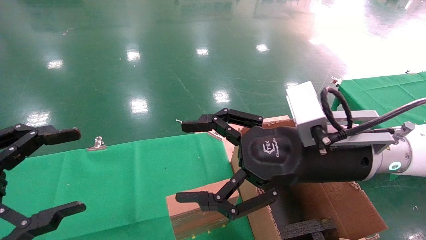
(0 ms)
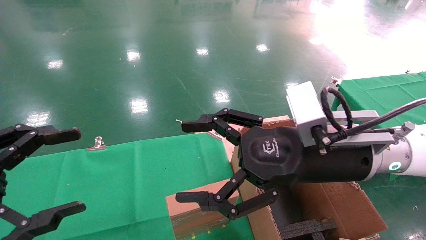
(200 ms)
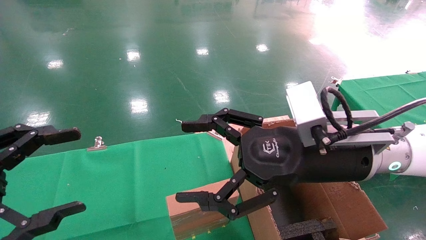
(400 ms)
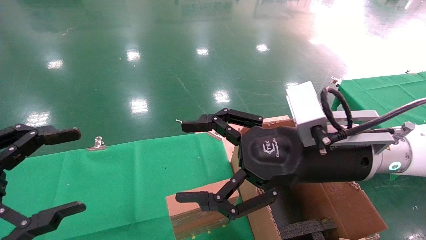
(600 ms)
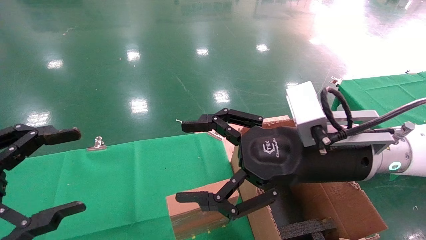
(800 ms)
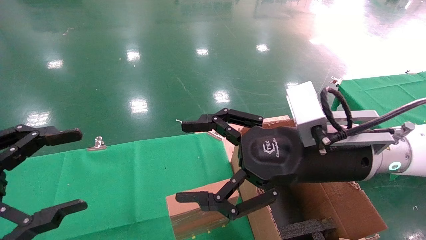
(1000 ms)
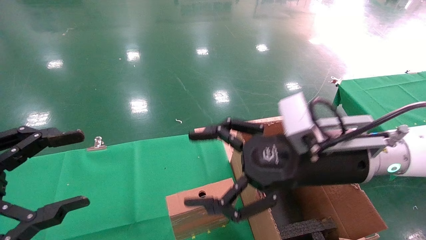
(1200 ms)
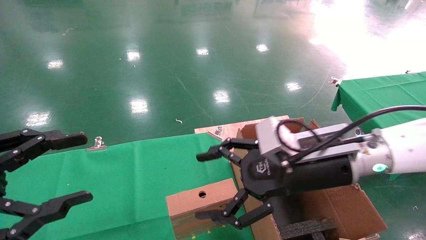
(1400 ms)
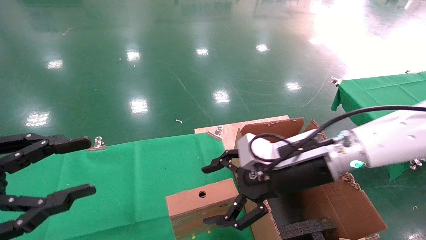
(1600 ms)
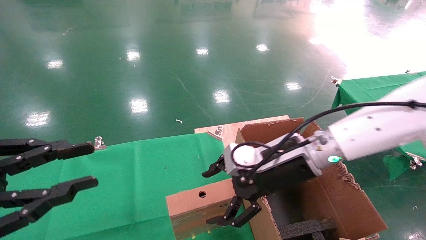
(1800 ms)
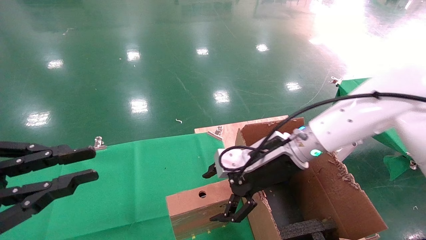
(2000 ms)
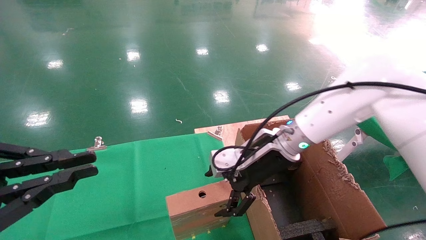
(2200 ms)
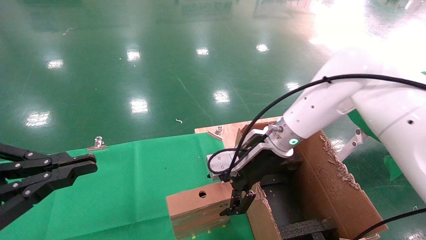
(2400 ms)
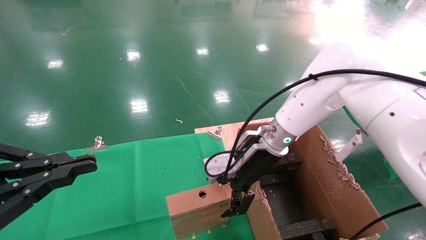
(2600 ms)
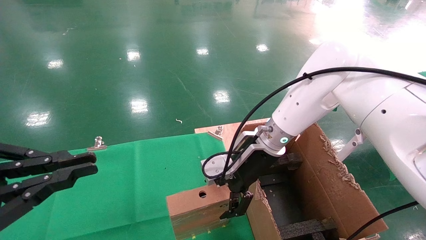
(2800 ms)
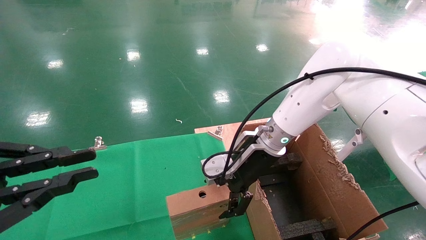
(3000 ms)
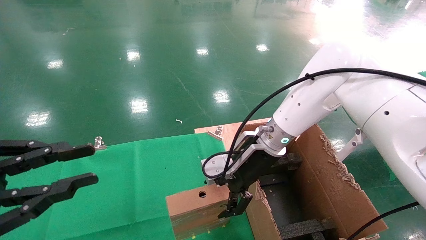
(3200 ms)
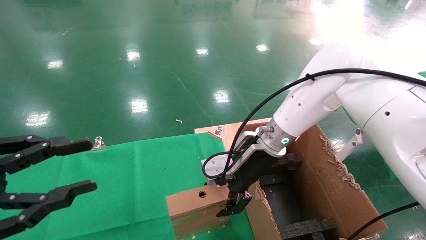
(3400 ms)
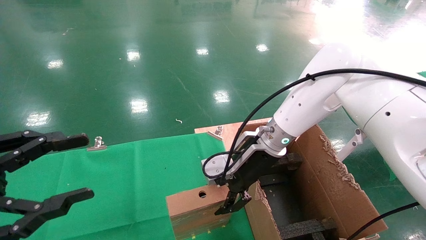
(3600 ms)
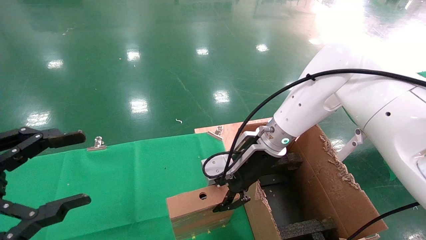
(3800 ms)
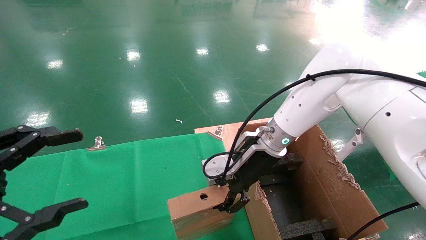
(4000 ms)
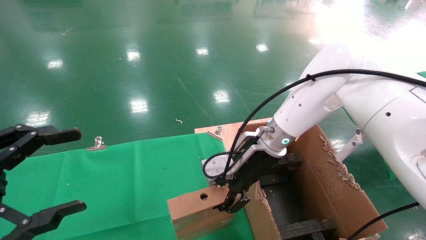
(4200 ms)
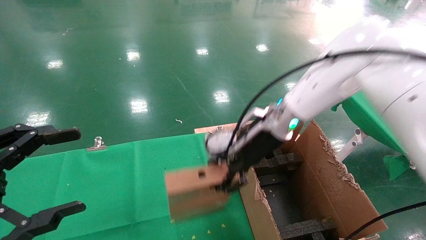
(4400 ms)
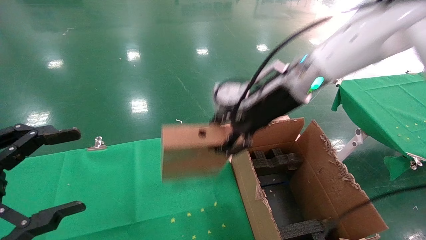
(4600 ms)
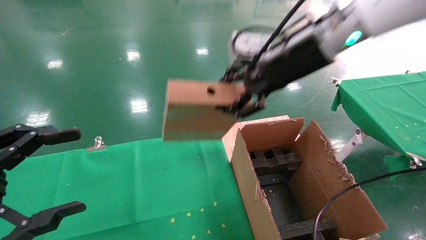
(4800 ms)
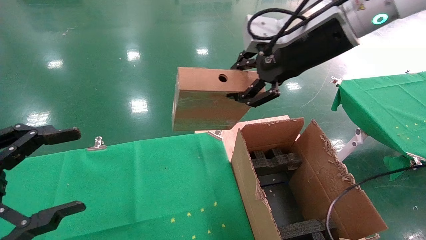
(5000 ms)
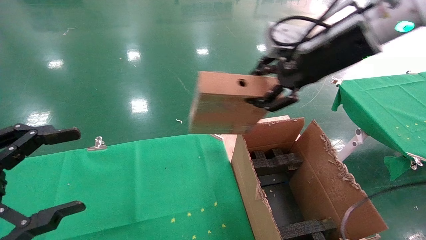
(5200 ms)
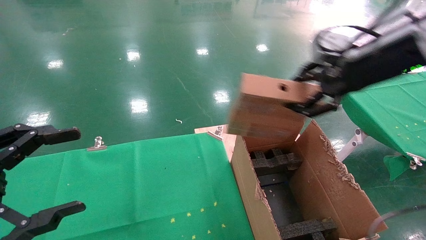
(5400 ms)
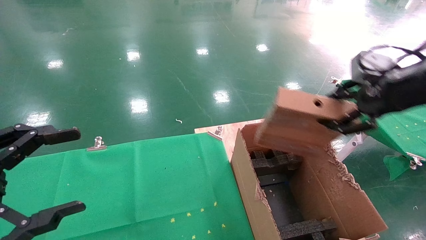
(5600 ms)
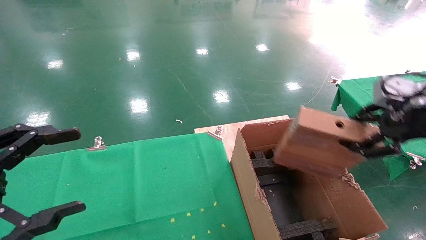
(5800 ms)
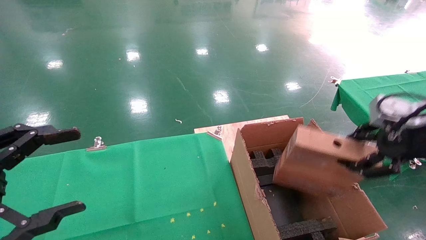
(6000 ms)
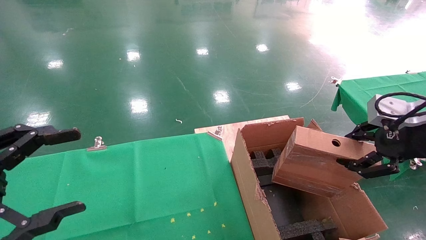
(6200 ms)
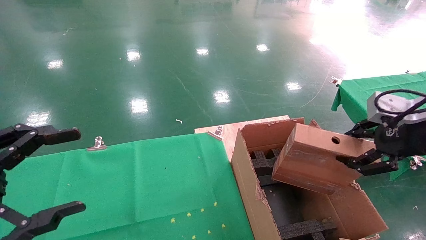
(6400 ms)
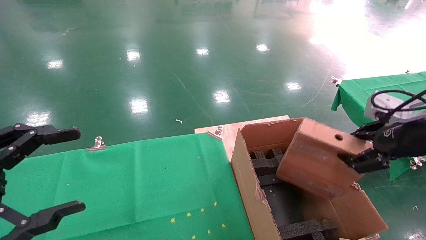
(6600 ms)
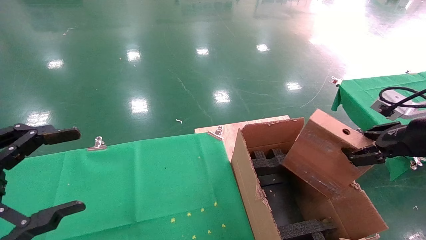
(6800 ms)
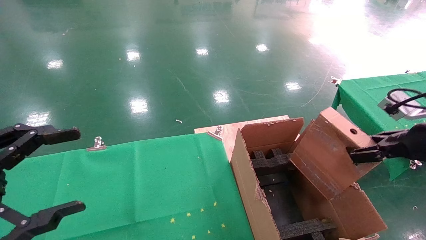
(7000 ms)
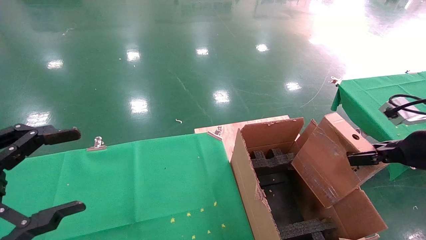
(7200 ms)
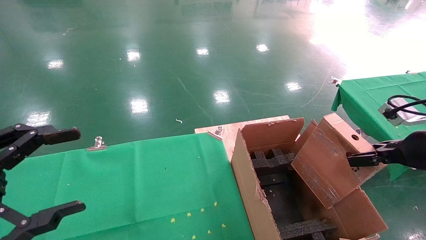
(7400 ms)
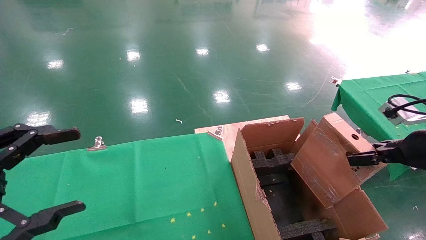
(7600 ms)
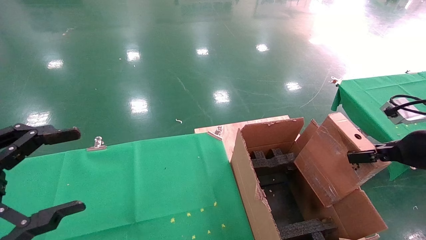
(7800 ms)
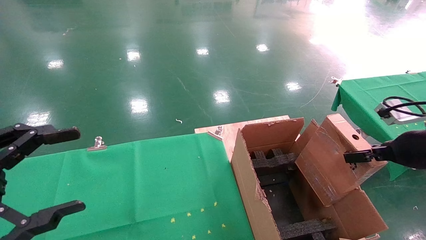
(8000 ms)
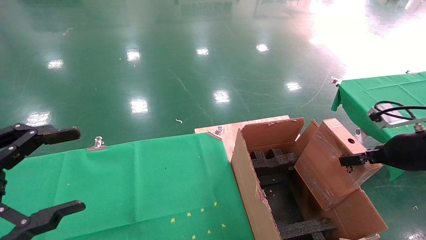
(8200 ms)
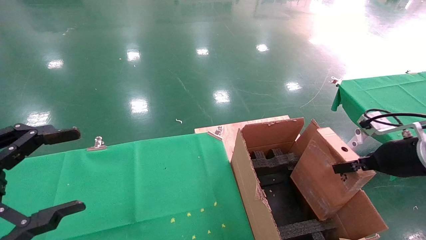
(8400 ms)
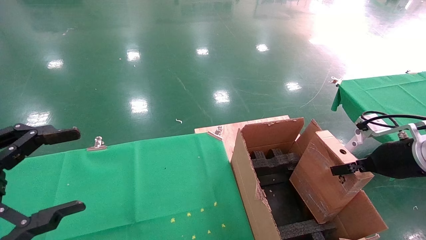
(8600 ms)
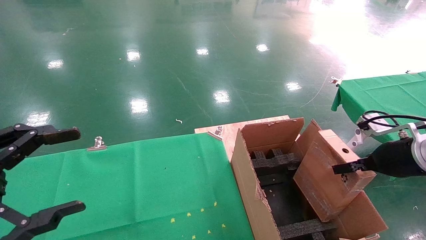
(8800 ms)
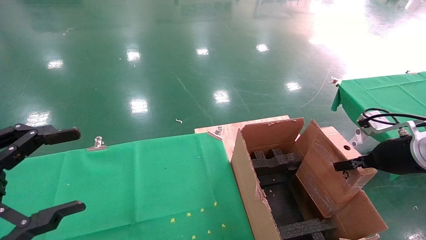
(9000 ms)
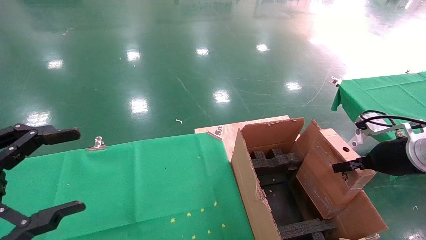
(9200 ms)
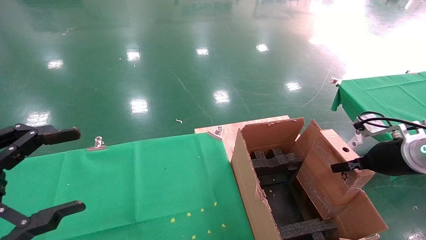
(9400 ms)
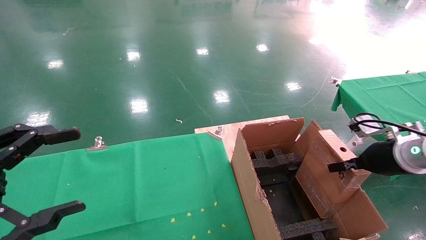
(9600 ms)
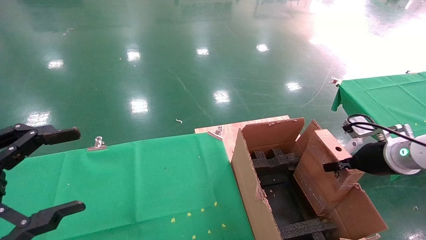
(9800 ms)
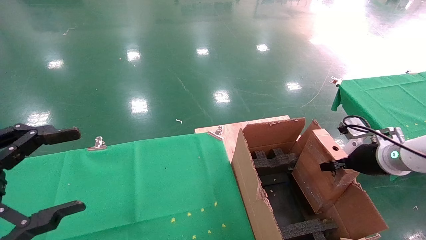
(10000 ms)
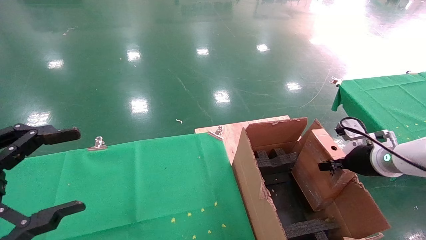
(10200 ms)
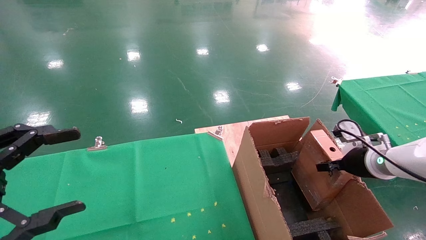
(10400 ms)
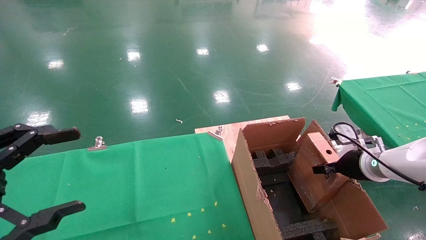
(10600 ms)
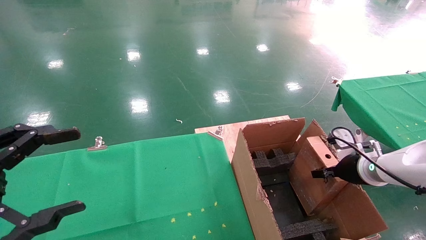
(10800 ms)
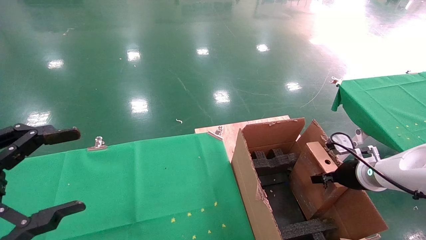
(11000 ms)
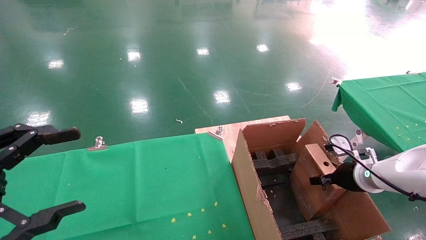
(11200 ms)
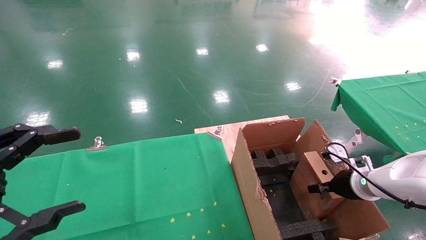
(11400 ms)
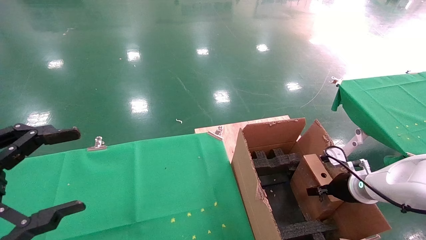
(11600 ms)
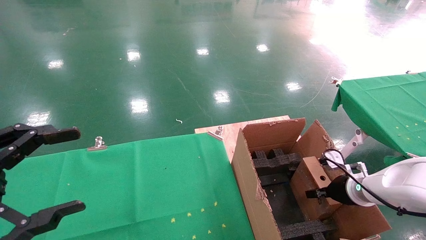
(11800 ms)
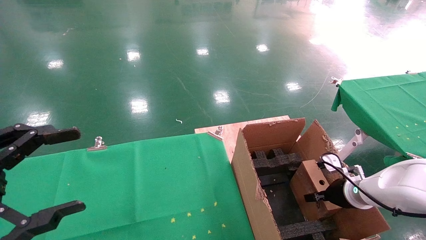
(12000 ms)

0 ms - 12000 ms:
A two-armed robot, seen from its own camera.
Task of the whole recording: using a robotic arm to pick up a cardboard box and palace it the carton.
Step, 1400 ms - 3800 ms: Pick up the mouse and the power cord paper box.
0 ms - 1600 ms: The left gripper closes. The right gripper is displaced forward by some 5 cm.
1600 ms - 3000 ms: The right gripper heads forward, covering roughly 10 cm. Meanwhile the left gripper closes.
3000 ms - 4400 ms: The right gripper moves upward, roughly 5 cm, and closes. Meanwhile the left gripper opens.
4400 ms - 6000 ms: The right gripper moves to the right and backward, roughly 30 cm.
6000 ms - 7600 ms: The right gripper moves downward, approximately 5 cm.
7600 ms - 9000 ms: The right gripper changes place by some 5 cm.
9000 ms - 10400 ms: The right gripper moves forward and downward, approximately 10 cm.
10400 ms - 12000 ms: The right gripper heads downward, covering some 10 cm.

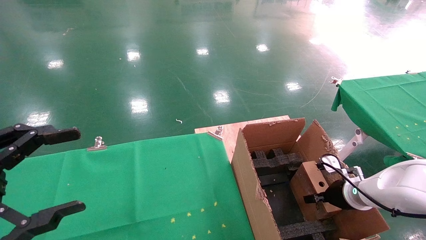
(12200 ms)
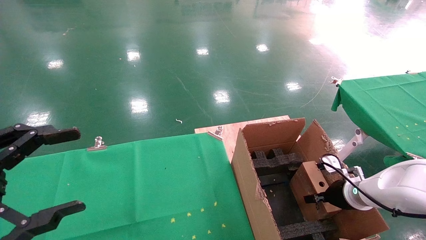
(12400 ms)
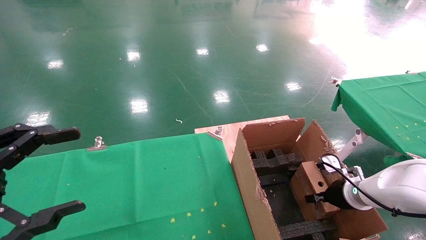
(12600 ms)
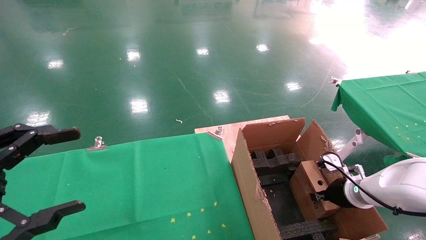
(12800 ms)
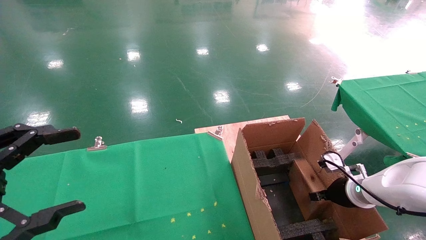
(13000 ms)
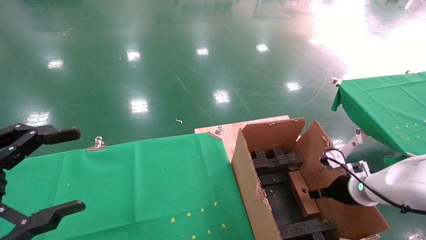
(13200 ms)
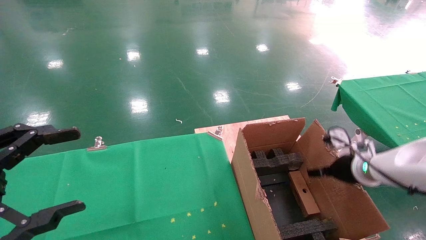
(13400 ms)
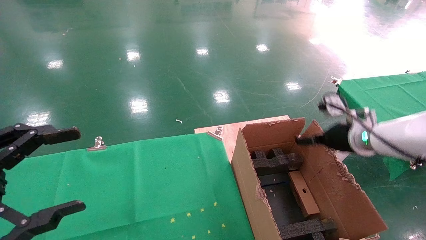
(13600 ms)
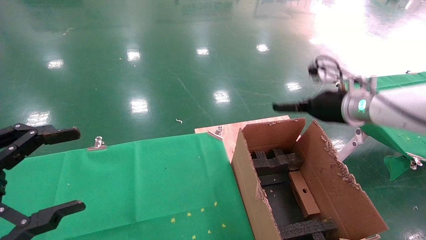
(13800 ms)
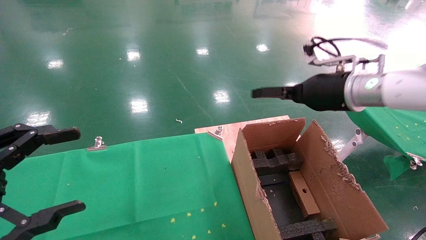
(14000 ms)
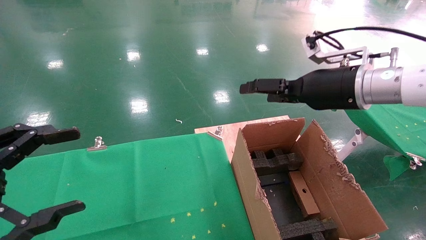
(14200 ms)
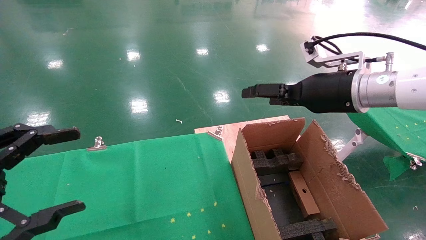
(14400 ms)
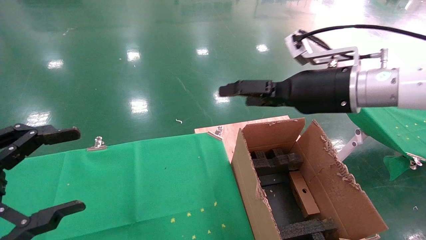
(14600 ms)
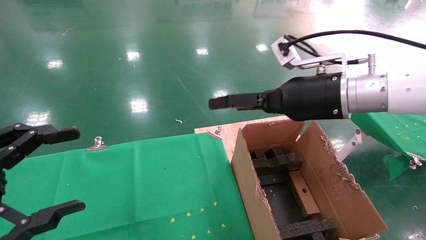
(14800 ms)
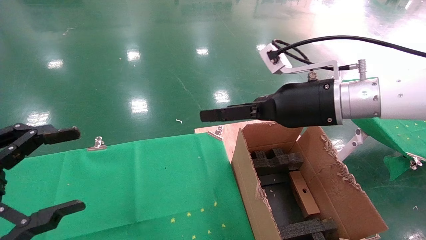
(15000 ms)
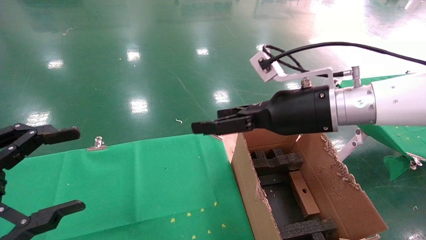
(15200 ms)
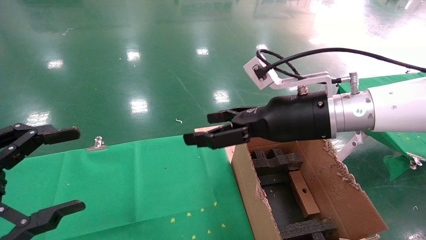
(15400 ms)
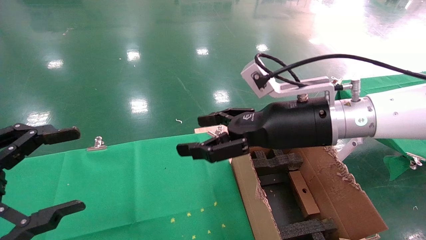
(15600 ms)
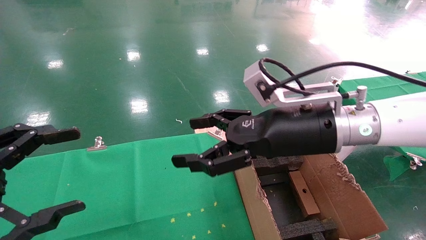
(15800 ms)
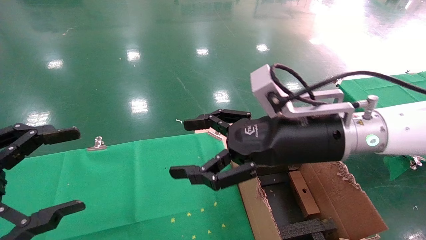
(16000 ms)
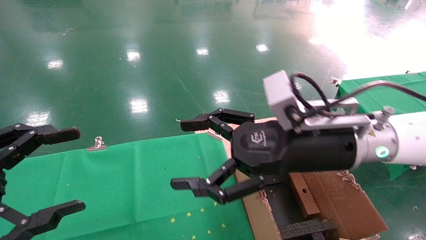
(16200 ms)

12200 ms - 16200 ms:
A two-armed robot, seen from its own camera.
Task of the whole recording: using a robotic arm to pick up a cardboard box and palace it the carton.
12200 ms - 13600 ms: The right gripper shifts some 15 cm upward, and opens up.
13600 ms - 14800 ms: The right gripper moves to the left, upward and backward, roughly 15 cm.
14800 ms - 16200 ms: The right gripper is displaced backward by some 5 cm.
